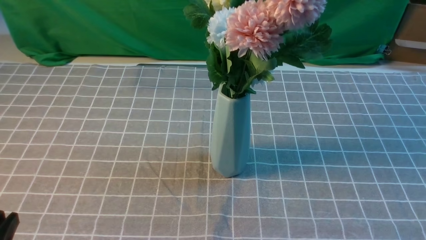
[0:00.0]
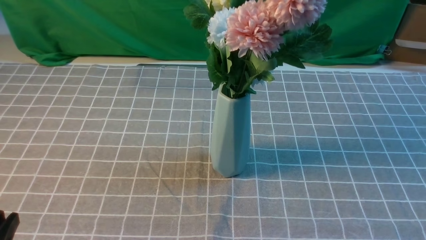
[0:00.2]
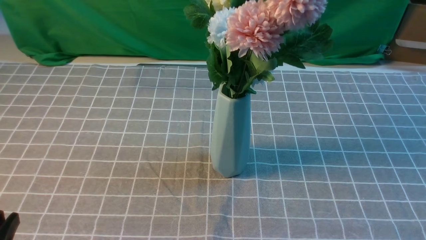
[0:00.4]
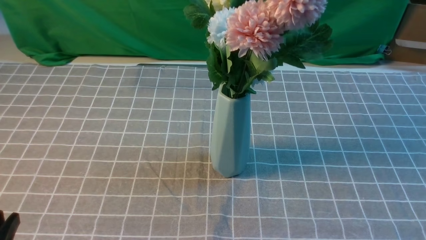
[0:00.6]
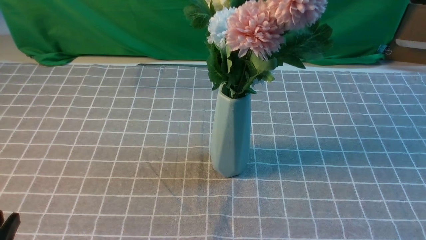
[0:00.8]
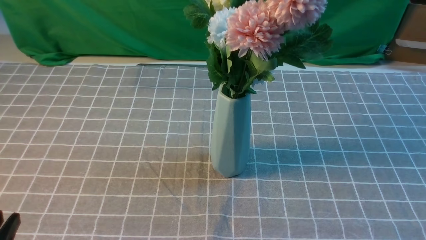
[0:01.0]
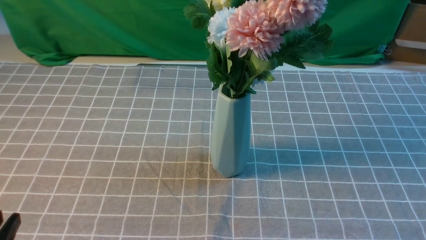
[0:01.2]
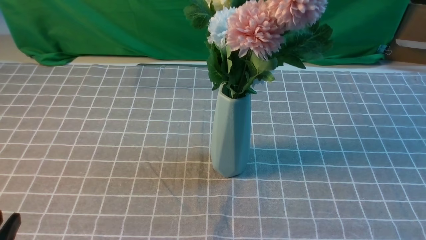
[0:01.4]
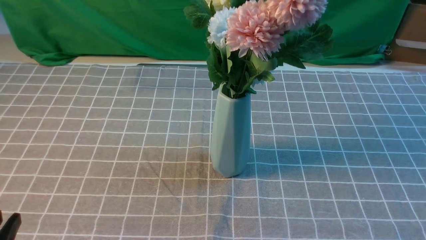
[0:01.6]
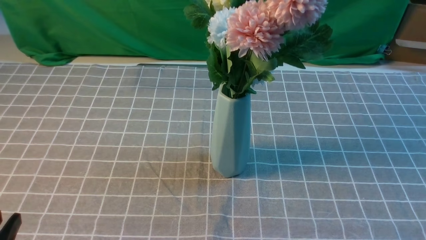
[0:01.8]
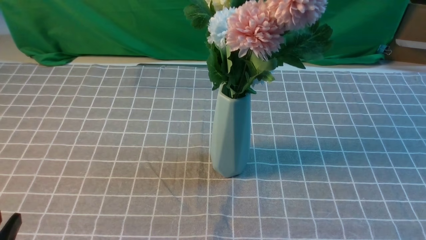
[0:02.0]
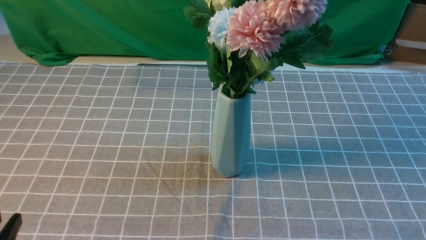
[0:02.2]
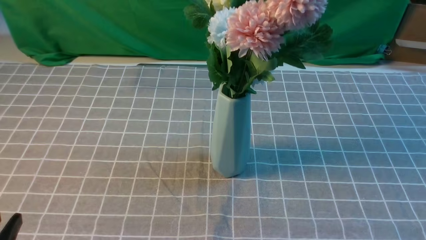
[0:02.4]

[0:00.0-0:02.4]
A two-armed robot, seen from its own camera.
Task of the whole recording: insert the flowers into the vase on the table with the grey tablecloth.
0:00.0 to 0:02.4: The two grippers keep their place.
